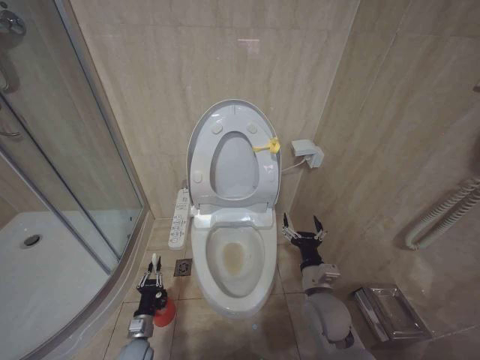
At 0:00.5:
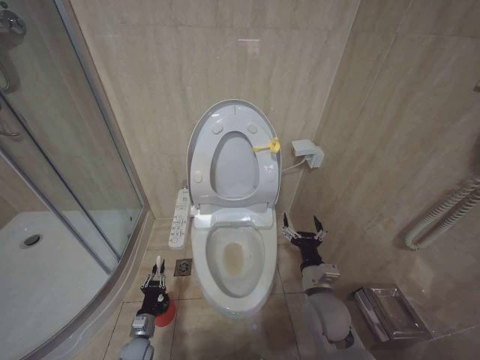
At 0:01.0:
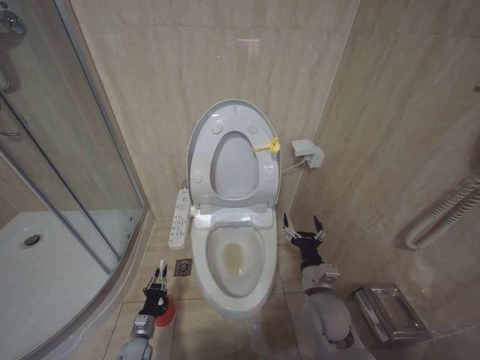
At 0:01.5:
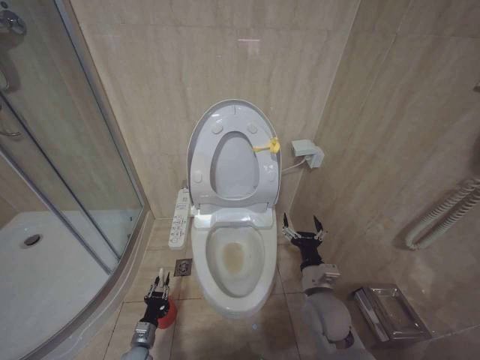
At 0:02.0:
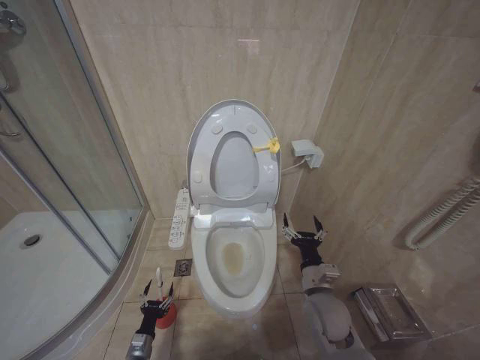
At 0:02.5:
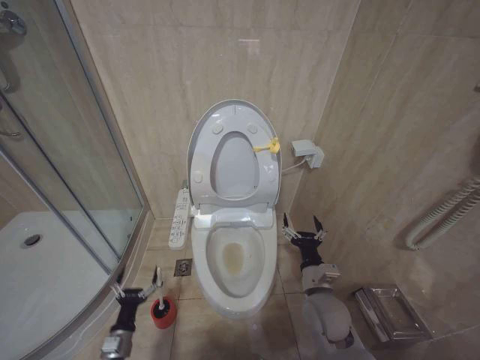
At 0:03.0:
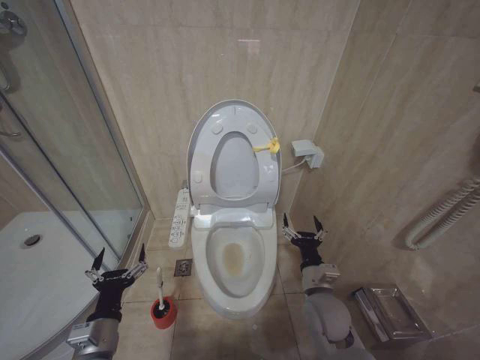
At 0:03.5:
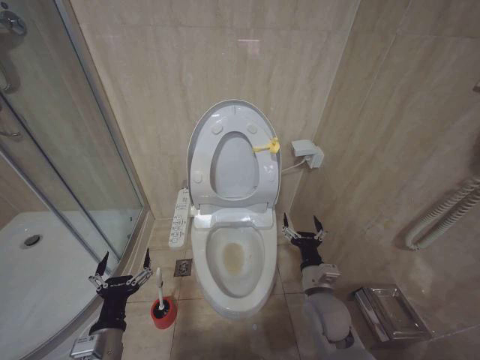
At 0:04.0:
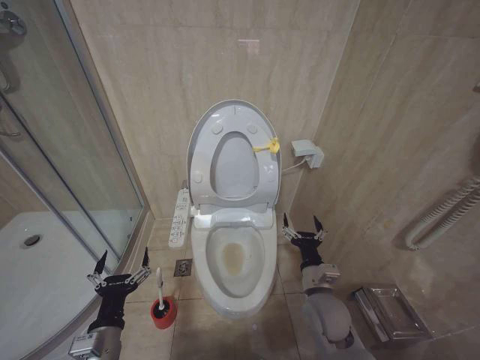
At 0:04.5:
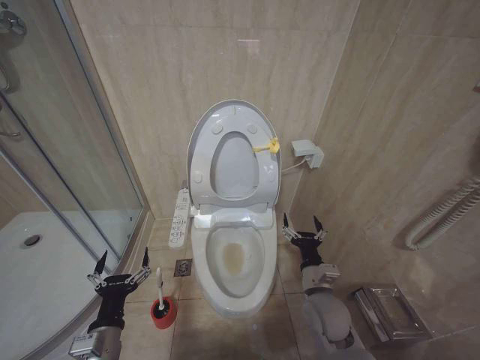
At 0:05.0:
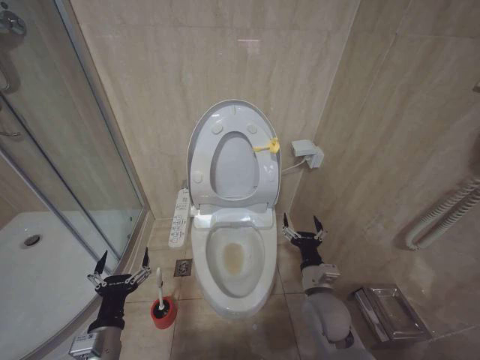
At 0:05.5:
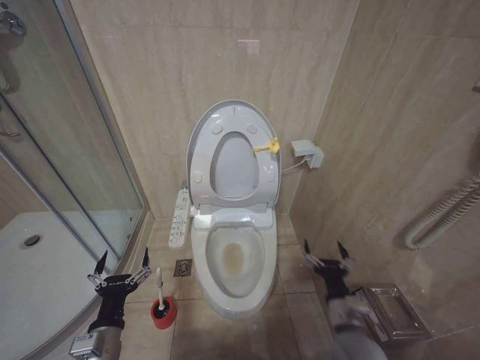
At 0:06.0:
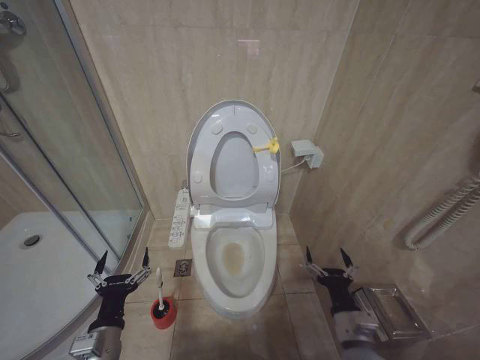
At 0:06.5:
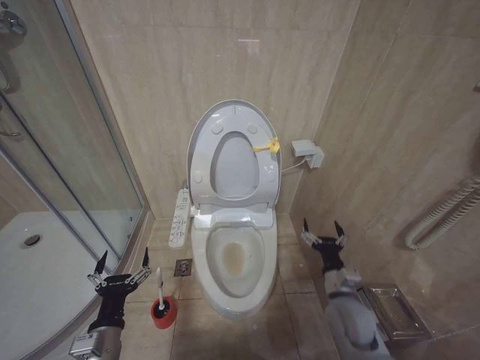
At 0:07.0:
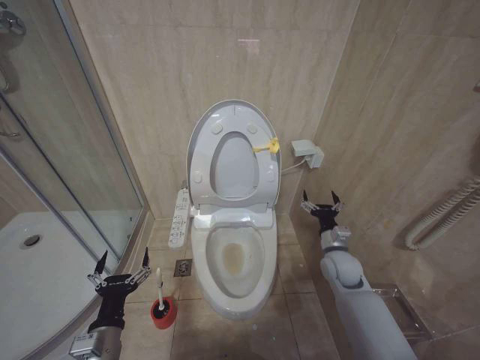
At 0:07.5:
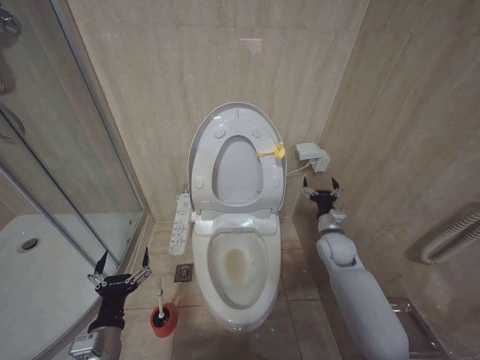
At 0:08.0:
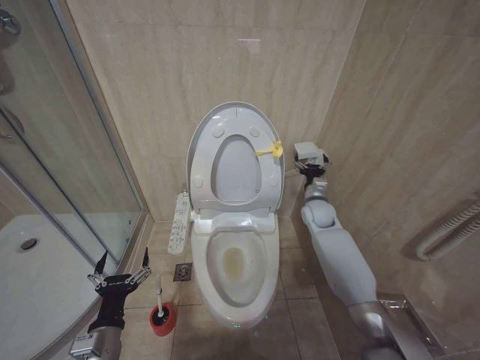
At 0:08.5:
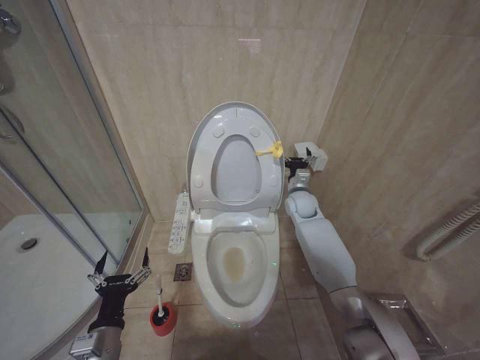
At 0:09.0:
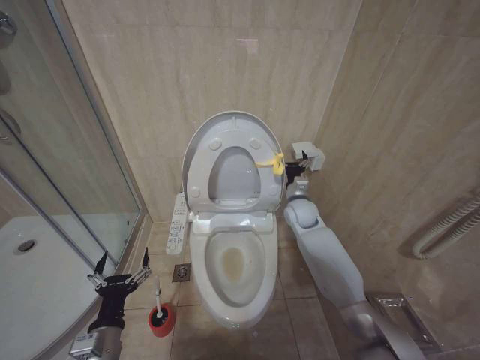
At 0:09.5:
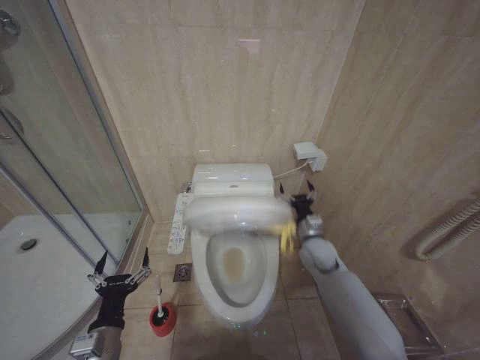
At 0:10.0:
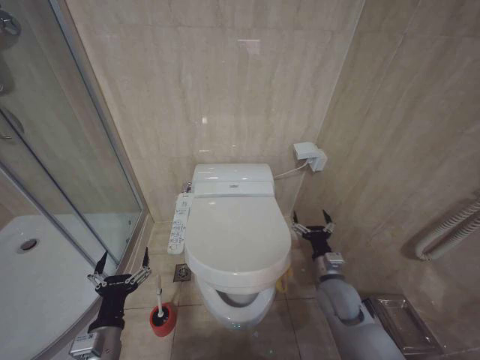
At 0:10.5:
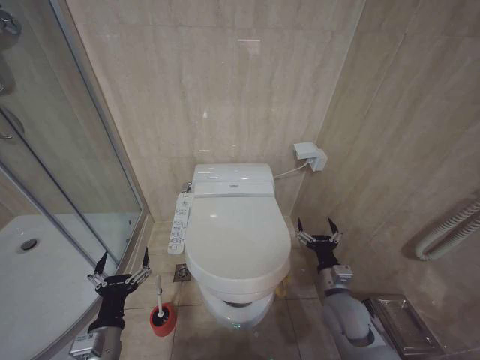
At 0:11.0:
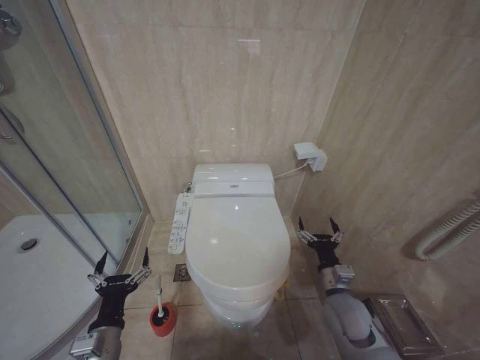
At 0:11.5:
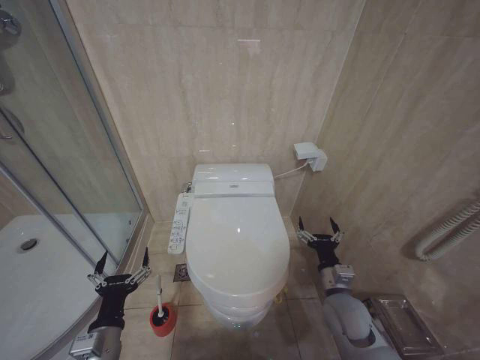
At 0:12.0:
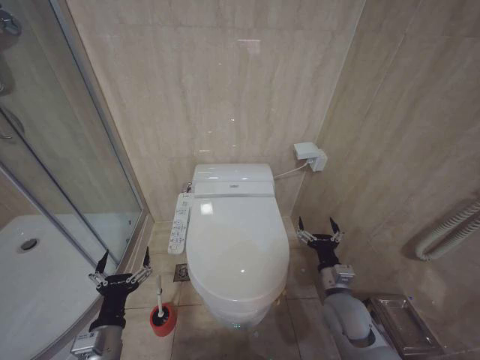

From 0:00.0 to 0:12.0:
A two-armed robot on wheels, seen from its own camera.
Task of the whole recording: Open the toilet lid, clean the toilet bowl with a toilet brush, close the toilet lid, and flush.
From 0:00.0 to 0:02.0: The left gripper moves some 5 cm, and opens up.
From 0:02.0 to 0:04.0: The left gripper is displaced upward by roughly 30 cm.
From 0:04.0 to 0:06.0: The right gripper travels backward by roughly 10 cm.
From 0:06.0 to 0:08.0: The right gripper shifts about 35 cm forward.
From 0:08.0 to 0:10.0: The right gripper goes roughly 20 cm backward and downward.
From 0:10.0 to 0:12.0: The right gripper shifts approximately 5 cm backward.

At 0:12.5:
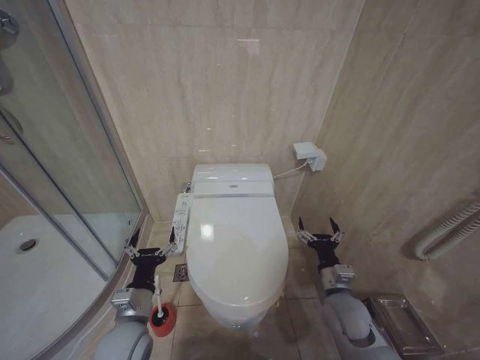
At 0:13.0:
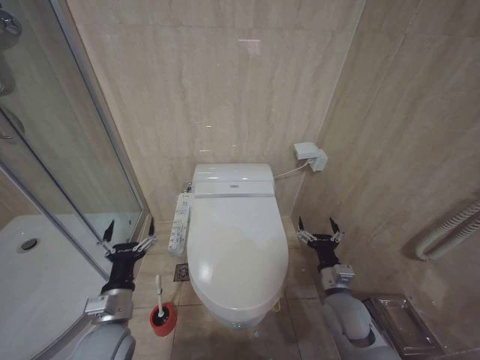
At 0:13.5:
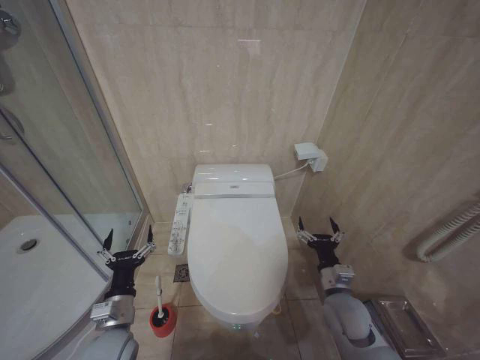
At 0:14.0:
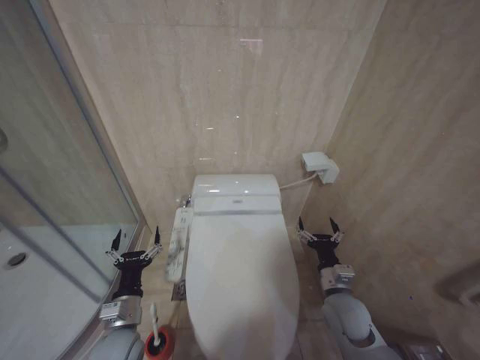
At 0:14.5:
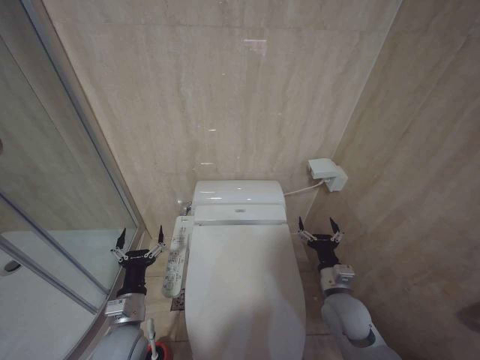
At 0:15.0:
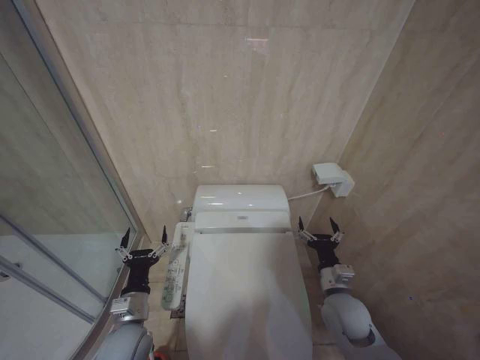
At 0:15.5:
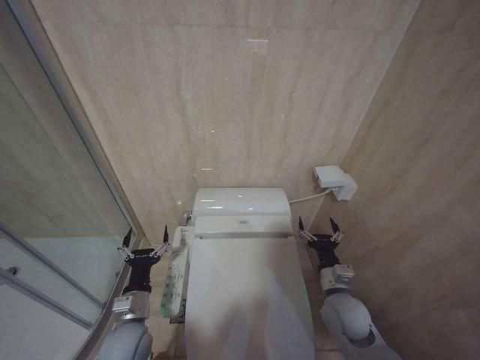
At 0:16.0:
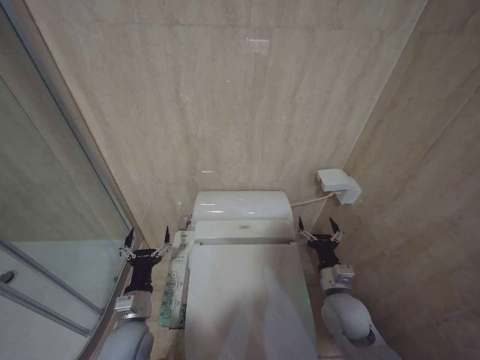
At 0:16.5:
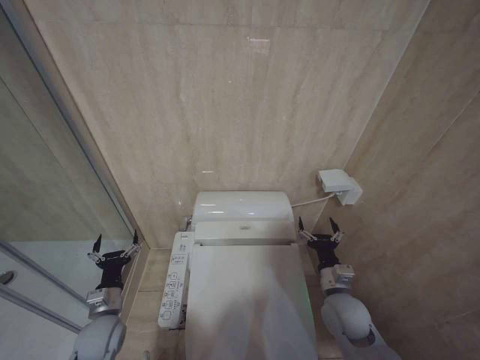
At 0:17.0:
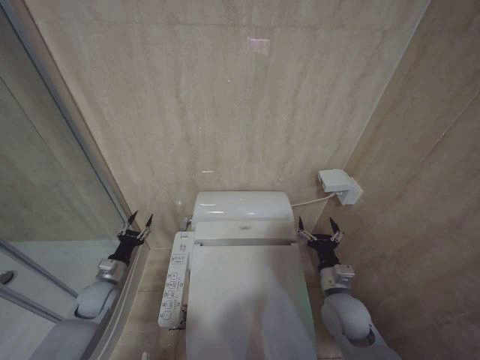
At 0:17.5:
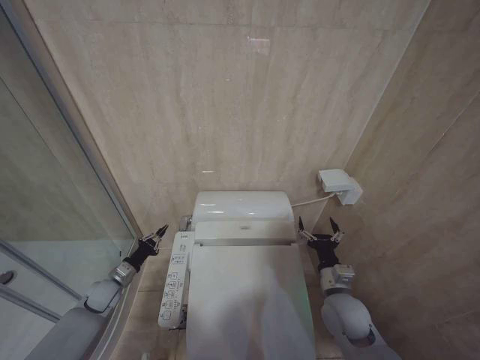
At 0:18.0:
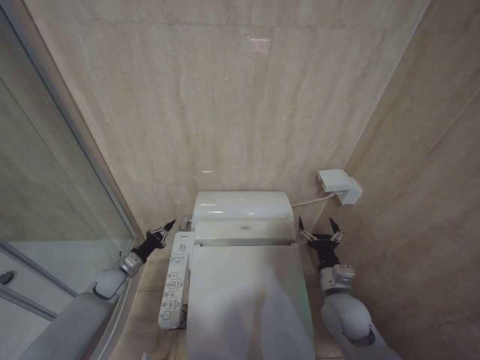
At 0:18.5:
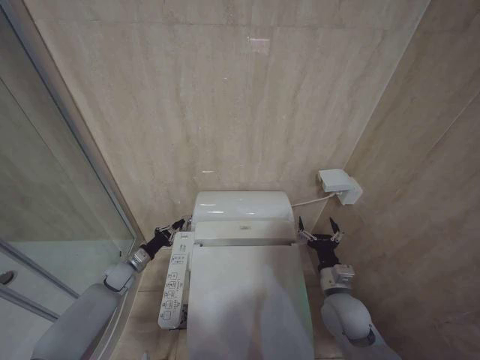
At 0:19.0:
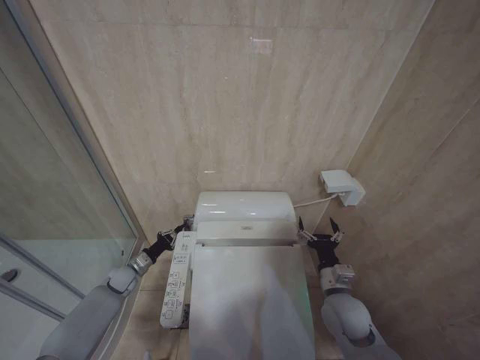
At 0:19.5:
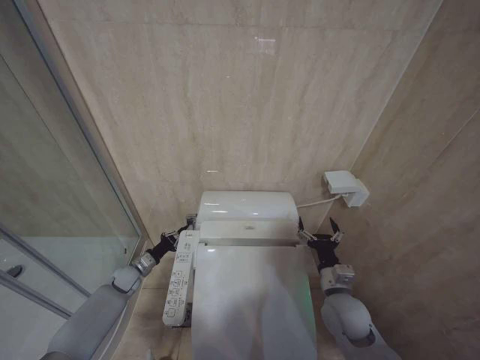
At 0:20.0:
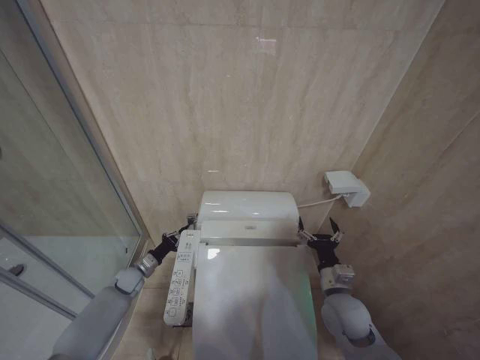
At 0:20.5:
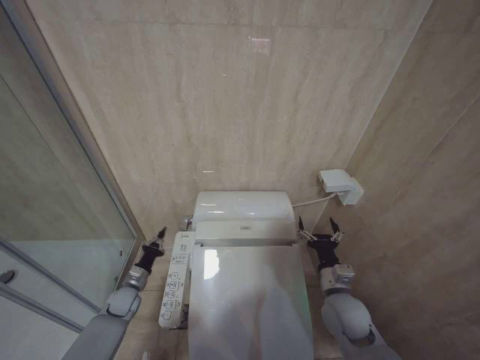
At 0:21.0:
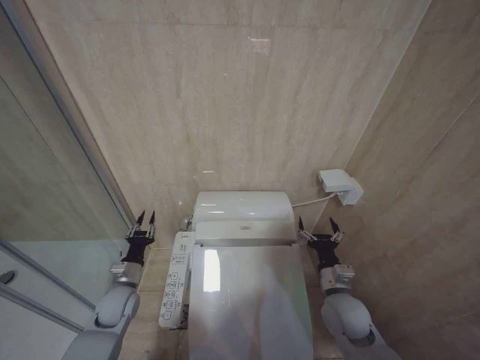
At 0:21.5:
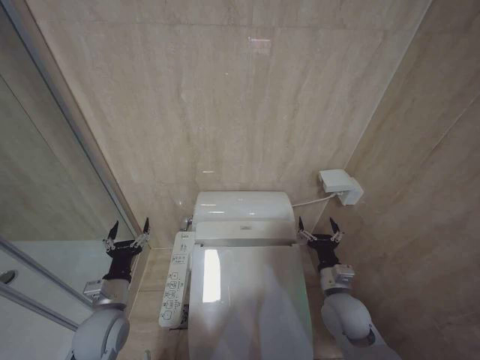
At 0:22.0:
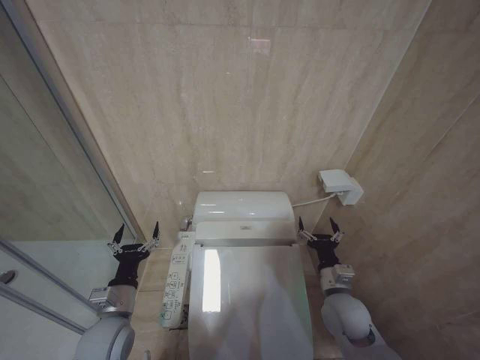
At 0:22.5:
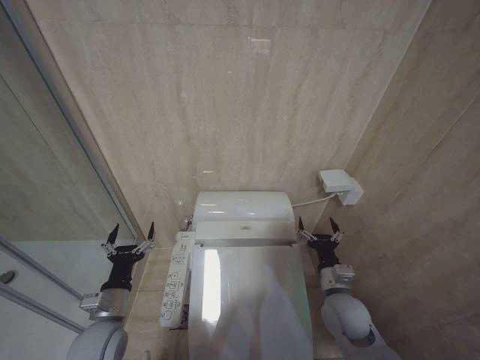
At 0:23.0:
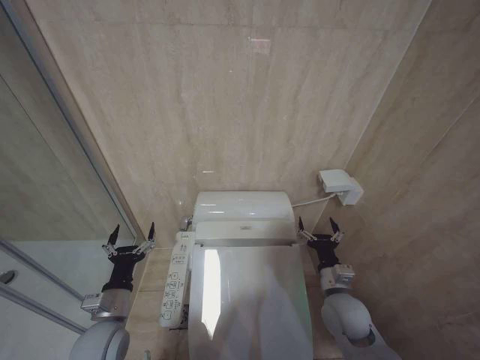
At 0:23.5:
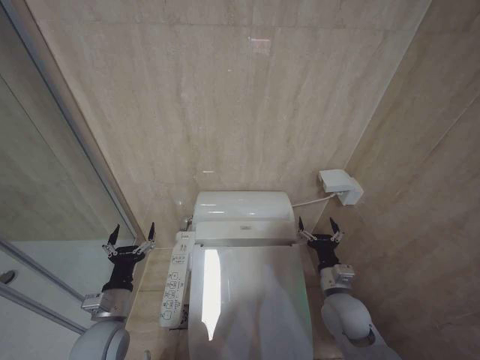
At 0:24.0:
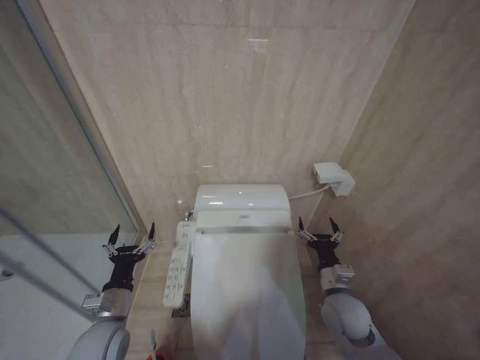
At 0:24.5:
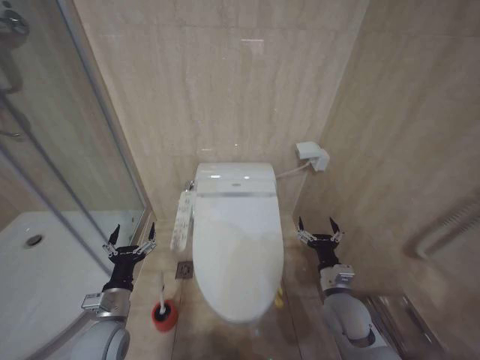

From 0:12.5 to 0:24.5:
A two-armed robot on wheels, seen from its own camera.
Task of the whole recording: Open the toilet lid, clean the toilet bowl with a toilet brush, close the toilet lid, and flush.
From 0:12.5 to 0:14.5: The grippers make only small movements.
From 0:14.5 to 0:16.5: The left gripper moves to the left, about 5 cm.
From 0:16.5 to 0:18.5: The left gripper heads forward, covering approximately 15 cm, and closes its fingers.
From 0:18.5 to 0:20.5: The left gripper goes approximately 10 cm downward and backward.
From 0:20.5 to 0:22.5: The left gripper heads upward and backward, covering about 20 cm, and opens.
From 0:22.5 to 0:24.5: Both grippers stay put.

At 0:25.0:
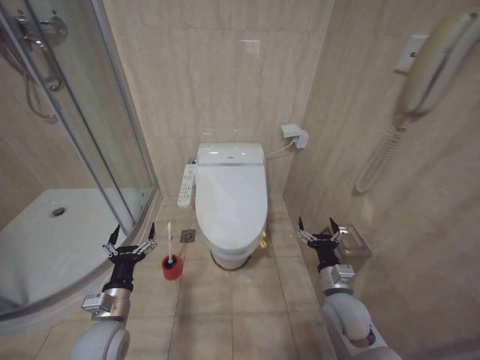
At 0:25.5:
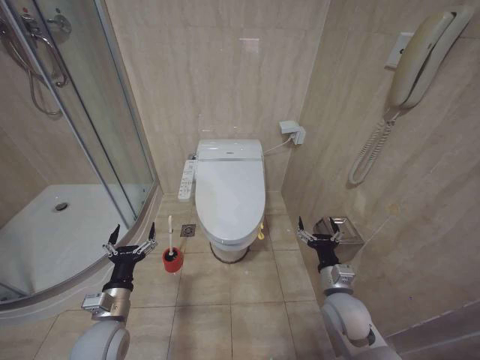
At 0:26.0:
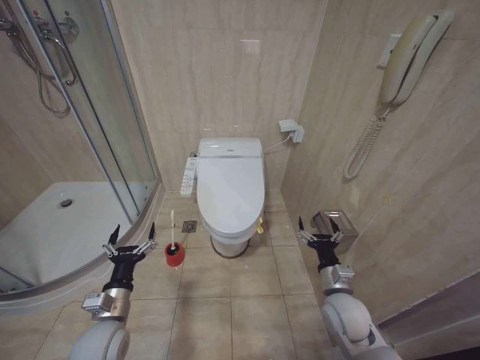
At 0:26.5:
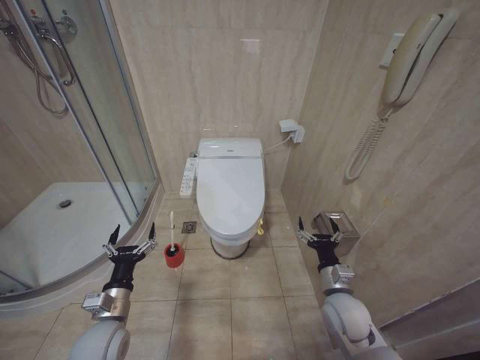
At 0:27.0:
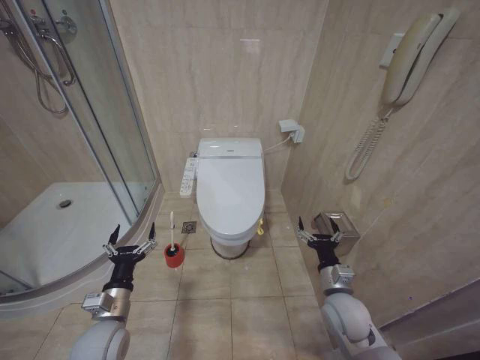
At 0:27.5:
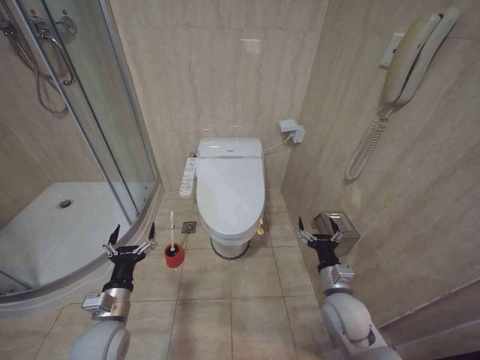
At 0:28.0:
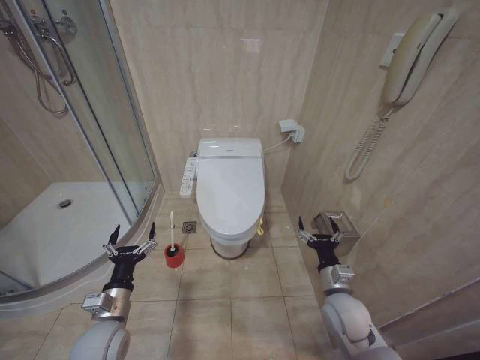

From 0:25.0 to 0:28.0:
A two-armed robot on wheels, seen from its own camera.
Task of the whole recording: Open the toilet lid, clean the toilet bowl with a toilet brush, close the toilet lid, and flush.
From 0:25.0 to 0:28.0: Both grippers stay put.
